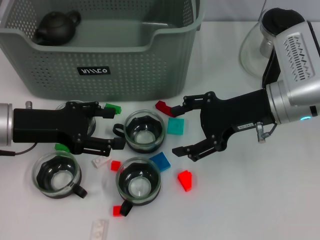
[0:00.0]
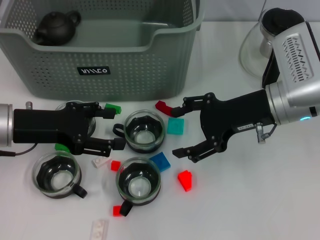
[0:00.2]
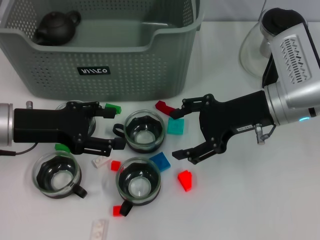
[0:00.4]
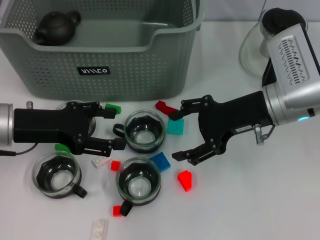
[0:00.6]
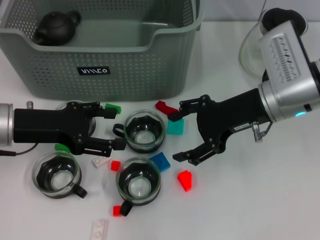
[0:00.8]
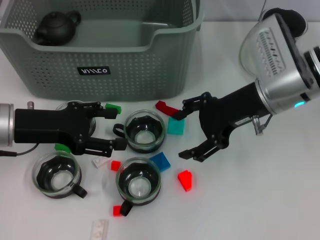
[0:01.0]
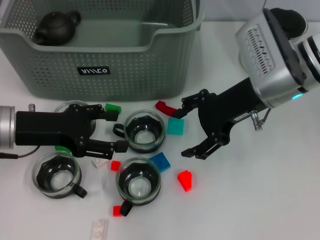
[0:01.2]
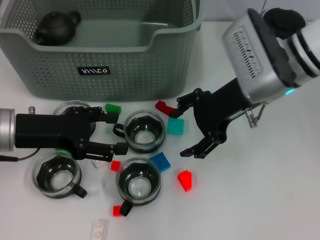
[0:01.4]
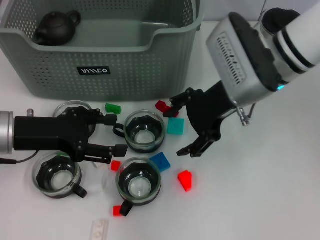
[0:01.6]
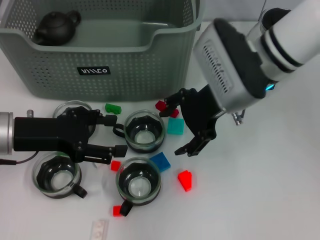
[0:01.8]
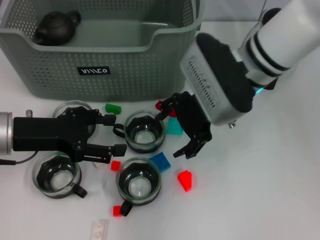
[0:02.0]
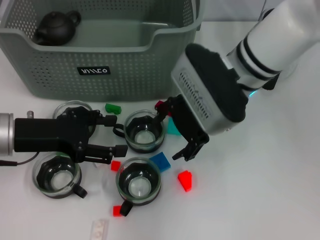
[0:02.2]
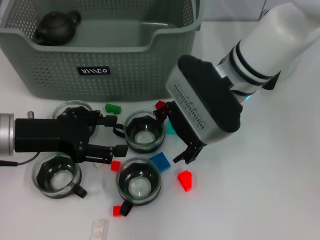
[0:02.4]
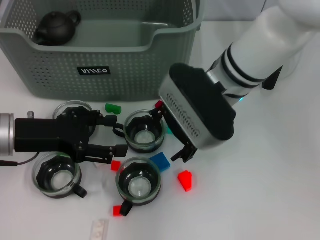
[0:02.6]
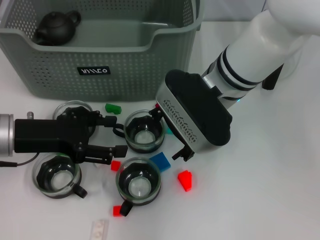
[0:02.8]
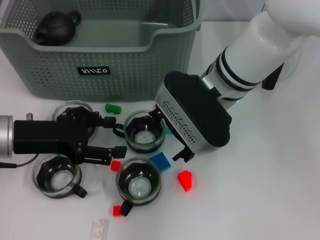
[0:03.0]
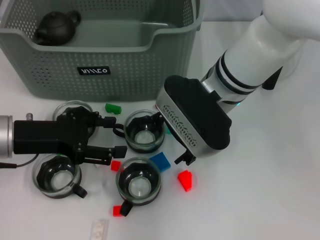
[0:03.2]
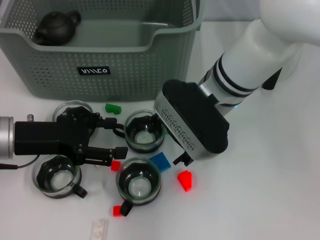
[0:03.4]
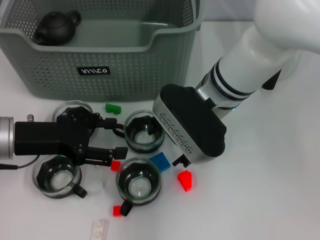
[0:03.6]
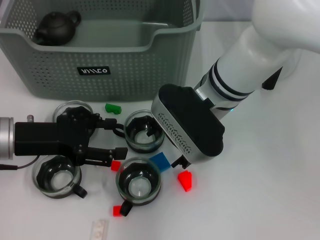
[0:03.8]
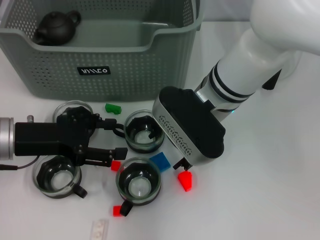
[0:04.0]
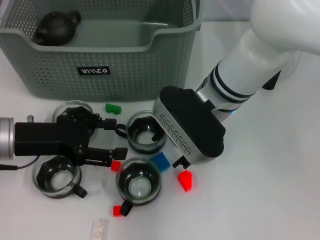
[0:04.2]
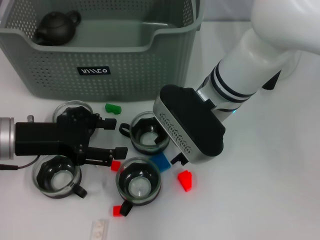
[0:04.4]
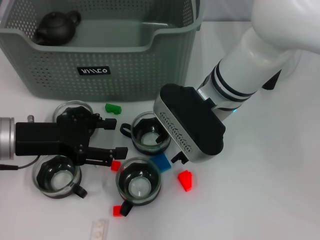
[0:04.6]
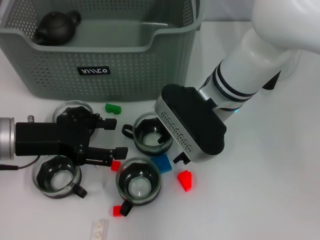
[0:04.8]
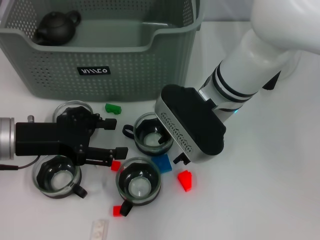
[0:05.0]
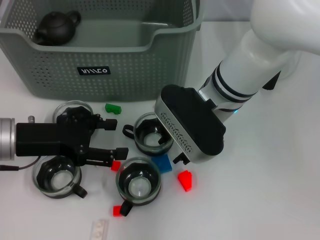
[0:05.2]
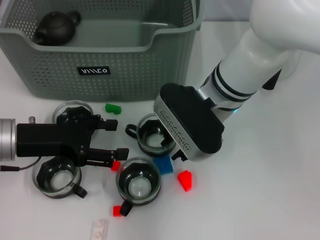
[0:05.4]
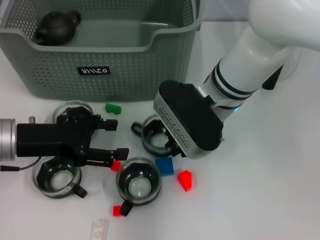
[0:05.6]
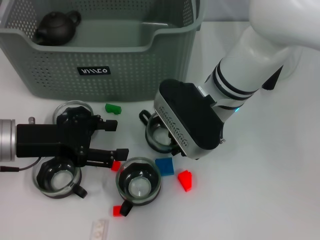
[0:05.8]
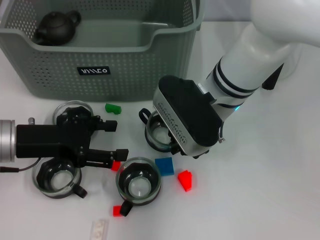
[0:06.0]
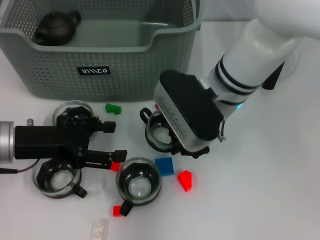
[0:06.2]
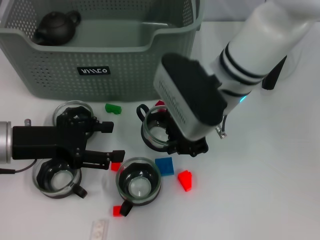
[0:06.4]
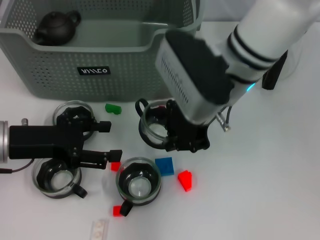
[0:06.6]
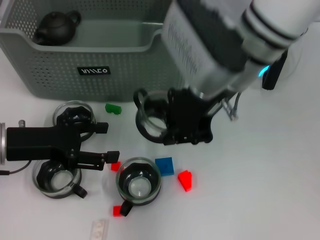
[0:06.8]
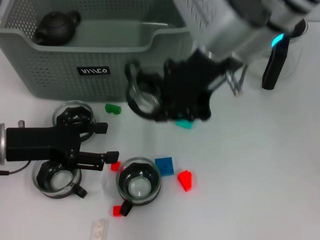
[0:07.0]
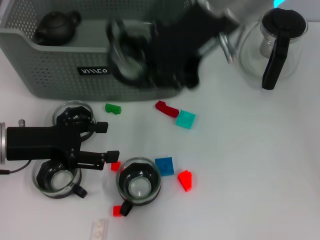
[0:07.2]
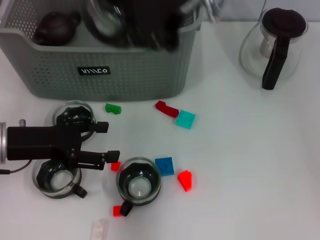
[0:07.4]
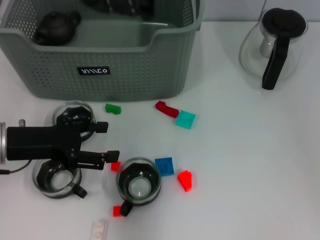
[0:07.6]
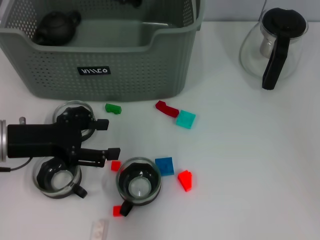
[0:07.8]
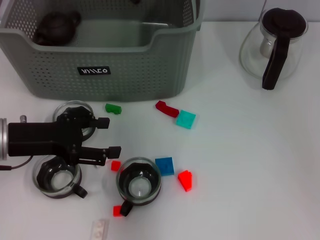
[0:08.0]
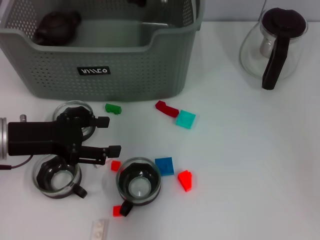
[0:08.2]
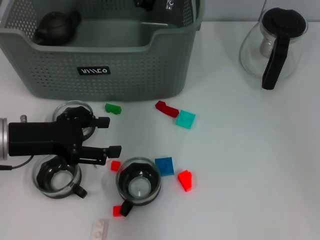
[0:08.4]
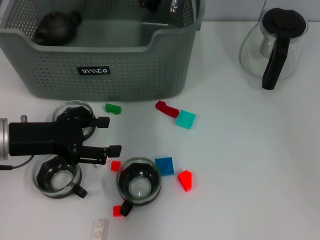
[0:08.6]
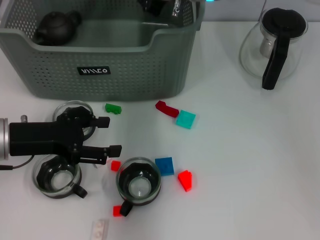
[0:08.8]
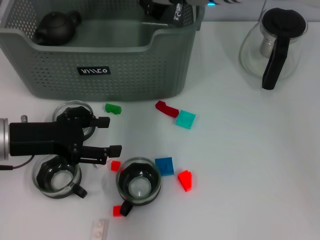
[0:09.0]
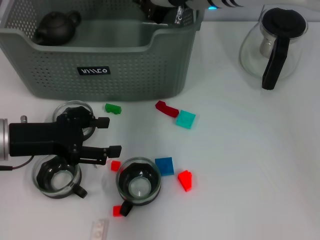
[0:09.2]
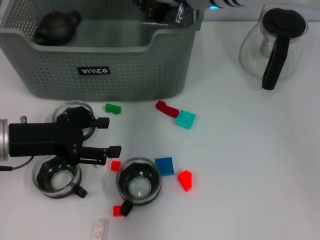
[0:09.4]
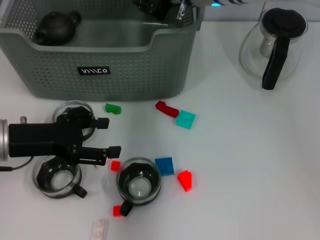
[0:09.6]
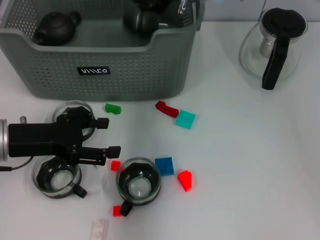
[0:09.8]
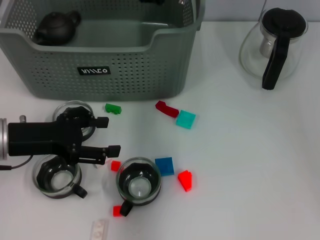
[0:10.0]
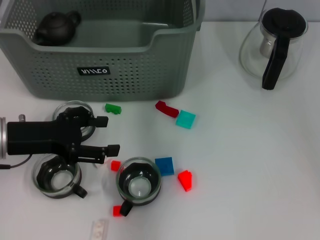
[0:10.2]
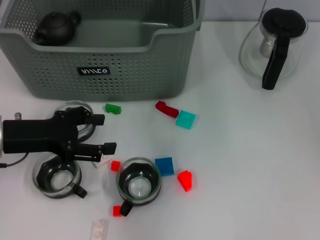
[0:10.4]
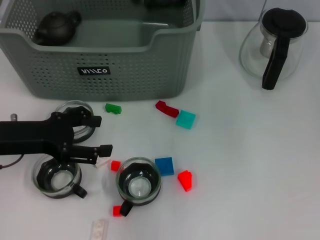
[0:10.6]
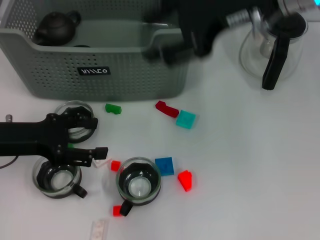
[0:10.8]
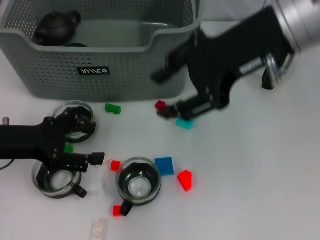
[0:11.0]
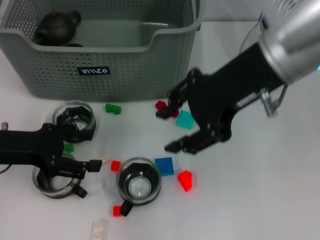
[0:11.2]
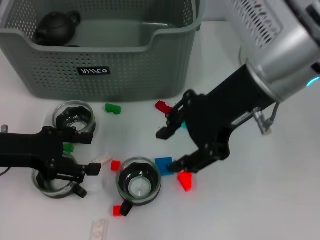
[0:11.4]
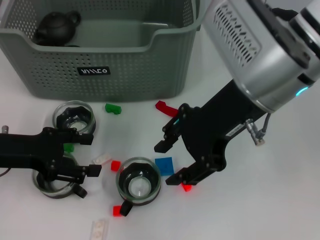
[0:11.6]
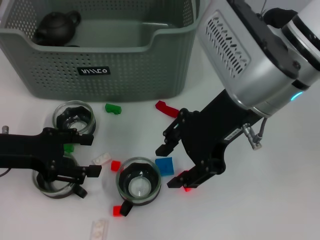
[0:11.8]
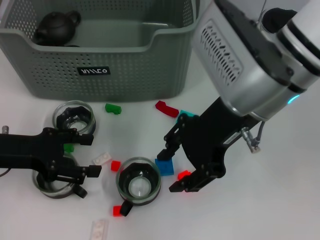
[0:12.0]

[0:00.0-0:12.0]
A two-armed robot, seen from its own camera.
Task of the whole recording: pick up the teacup on the table and place it into the storage bin, pick up the block on the table and place it into the storage bin.
Step, 0:00.0 to 0:05.6: Grasp the cup with right gripper.
Step, 0:06.0 to 0:10.0: Place the cup in the storage box with right gripper.
0:00.0 to 0:01.6: The right gripper shifts approximately 5 cm to the left.
0:01.6 to 0:03.0: The right gripper goes some 5 cm to the left.
0:03.0 to 0:04.4: The grippers stay close to where they were, moving slightly.
0:04.4 to 0:06.0: The right gripper closes up.
0:06.0 to 0:07.6: The right gripper heads upward, covering roughly 20 cm.
0:07.6 to 0:09.0: The right gripper shifts some 15 cm downward and forward.
0:09.0 to 0:10.4: The right gripper shifts some 5 cm upward, and opens up.
0:10.4 to 0:12.0: The right gripper is displaced backward by roughly 15 cm.

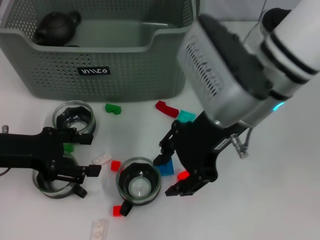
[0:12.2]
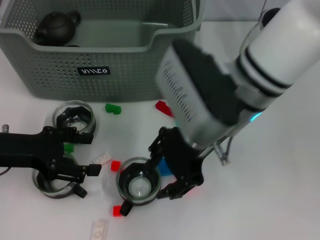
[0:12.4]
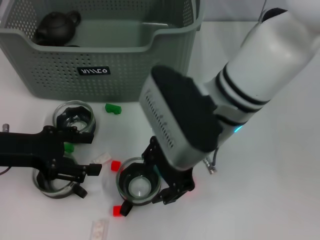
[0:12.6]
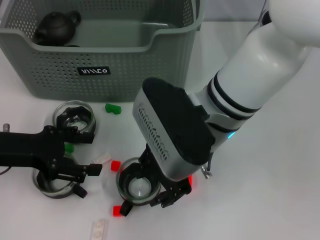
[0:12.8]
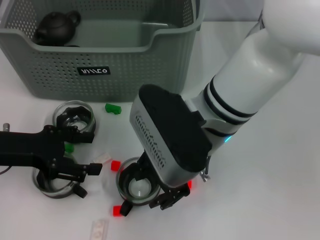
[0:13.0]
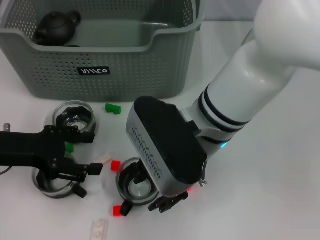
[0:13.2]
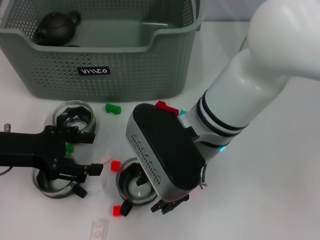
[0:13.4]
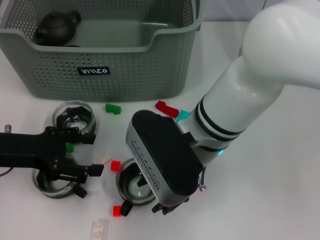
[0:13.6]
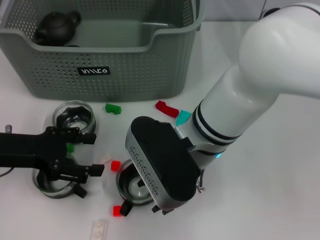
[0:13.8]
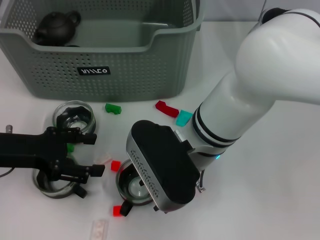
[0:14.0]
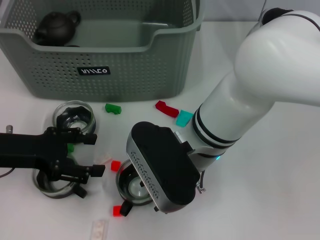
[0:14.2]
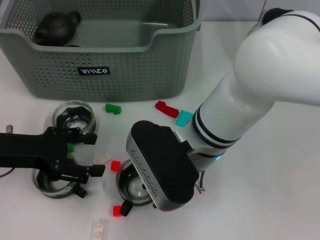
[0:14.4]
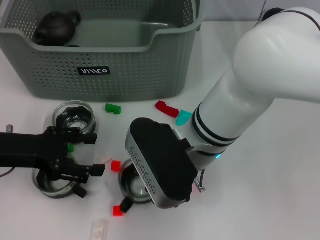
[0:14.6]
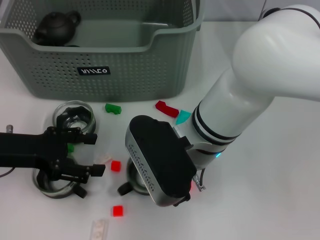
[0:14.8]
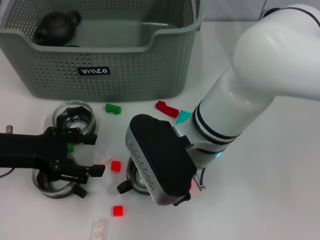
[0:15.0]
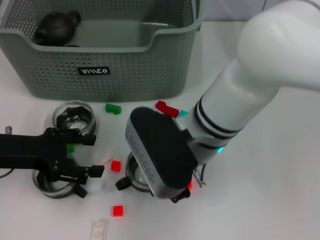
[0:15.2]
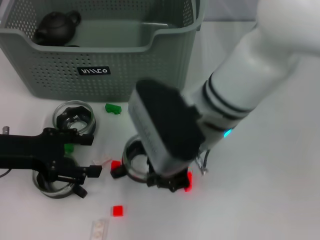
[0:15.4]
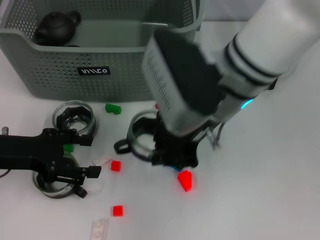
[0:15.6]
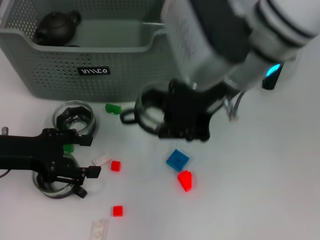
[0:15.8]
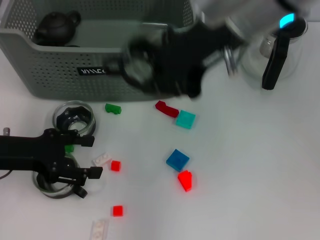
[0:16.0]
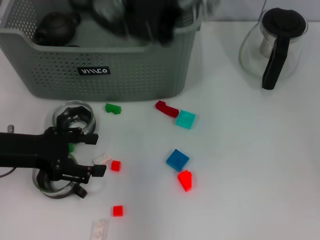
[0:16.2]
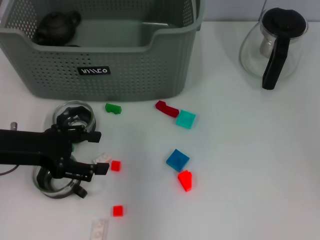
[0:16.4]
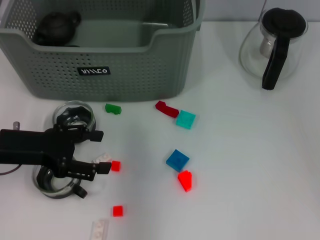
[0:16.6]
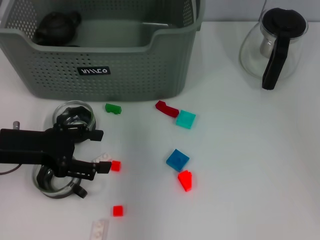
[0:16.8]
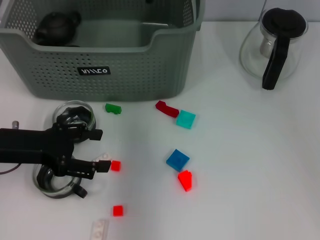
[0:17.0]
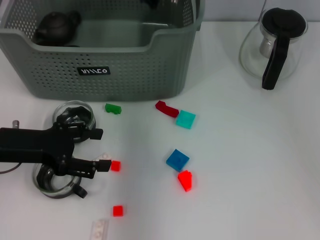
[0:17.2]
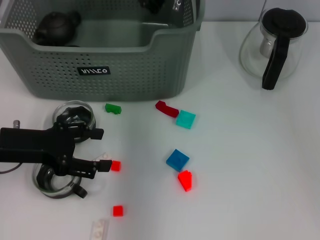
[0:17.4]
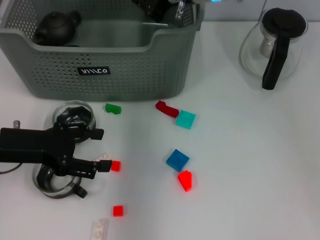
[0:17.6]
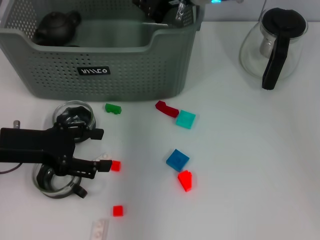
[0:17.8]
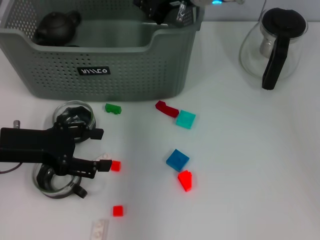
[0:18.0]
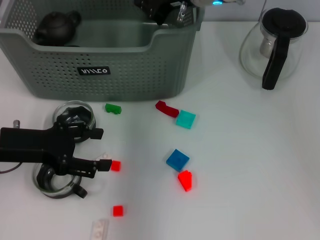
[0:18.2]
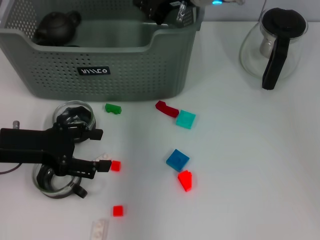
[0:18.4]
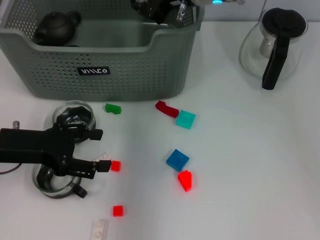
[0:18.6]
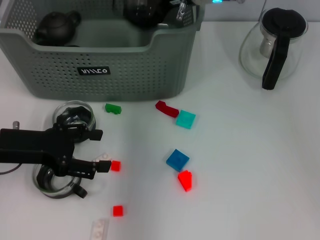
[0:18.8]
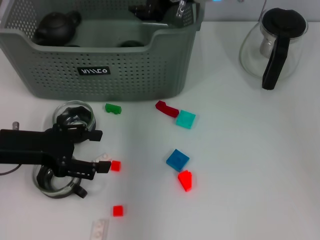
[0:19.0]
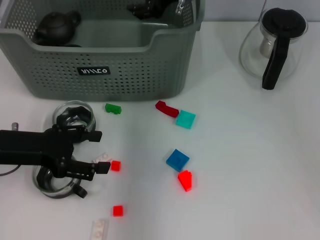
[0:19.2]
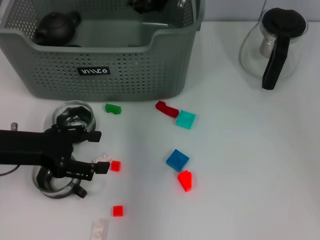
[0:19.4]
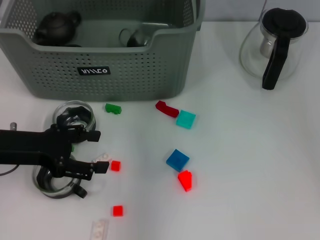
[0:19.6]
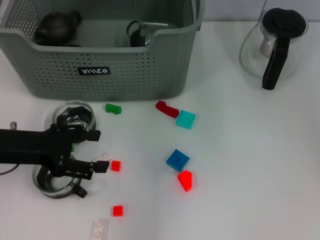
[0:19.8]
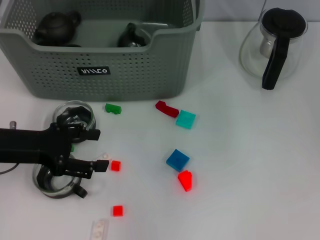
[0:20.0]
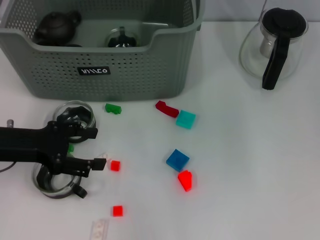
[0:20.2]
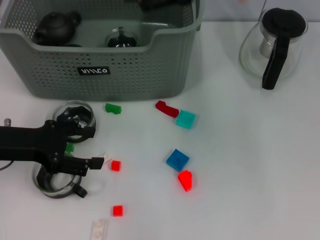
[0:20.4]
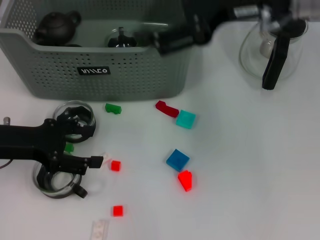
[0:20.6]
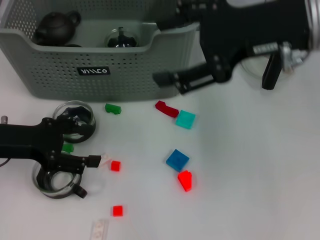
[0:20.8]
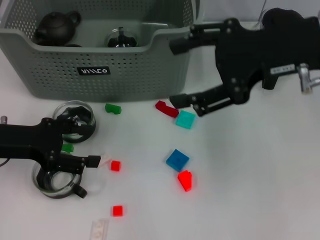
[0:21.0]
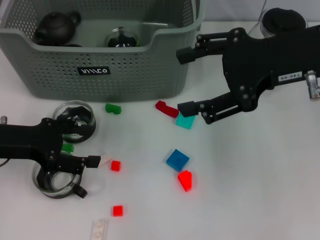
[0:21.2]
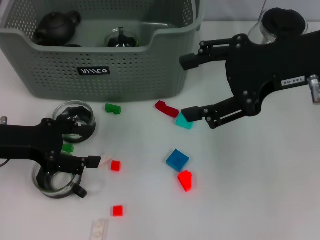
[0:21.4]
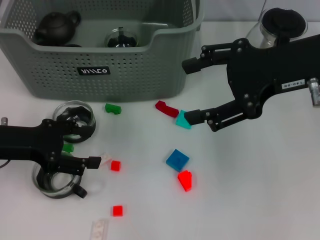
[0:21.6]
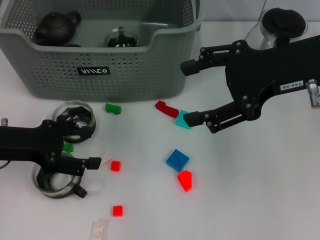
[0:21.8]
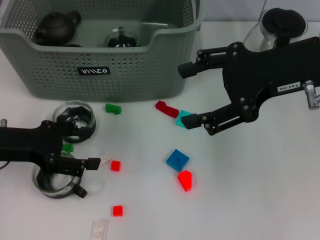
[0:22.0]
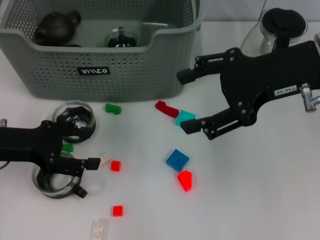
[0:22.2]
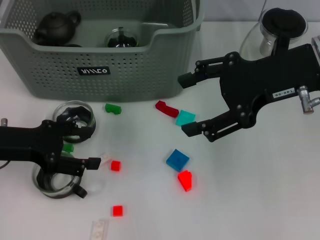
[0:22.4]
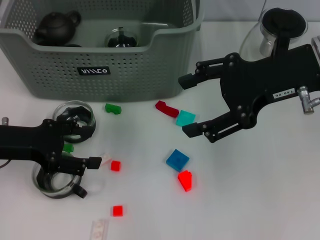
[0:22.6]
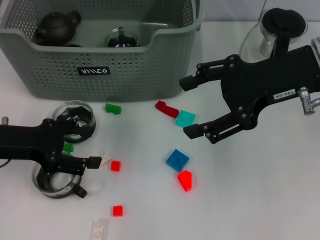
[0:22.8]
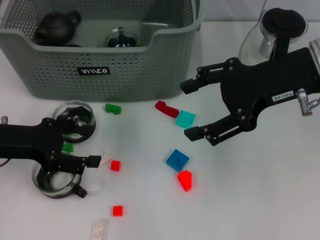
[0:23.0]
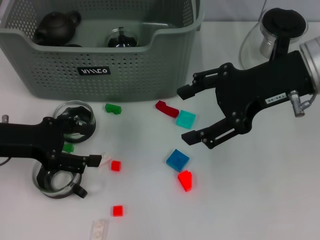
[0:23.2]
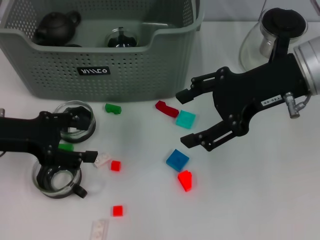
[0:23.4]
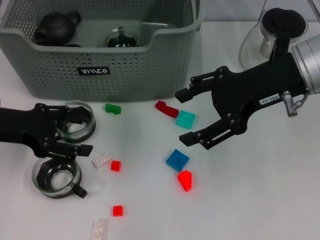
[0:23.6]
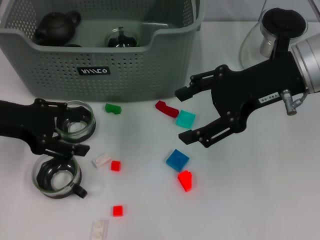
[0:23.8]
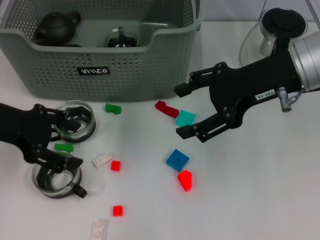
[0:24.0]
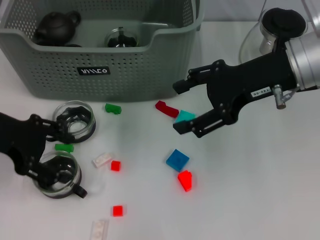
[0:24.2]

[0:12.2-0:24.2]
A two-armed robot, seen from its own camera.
Task of the whole recording: pick up the teacup on the table and place it into the storage bin, pick up the block on the table and place it into the storage bin.
Step, 0:12.2 to 0:14.8: Grasp the cup with right gripper.
Step, 0:15.0 to 0:19.2: Place the cup in the storage box with right gripper.
0:12.2 to 0:13.8: The right gripper moves downward and to the left, roughly 10 cm.
0:13.8 to 0:15.2: The right gripper closes up.
0:15.2 to 0:16.6: The right gripper goes some 20 cm upward and forward.
0:16.6 to 0:18.2: The right gripper moves downward, approximately 10 cm.
0:18.2 to 0:19.8: The right gripper is displaced upward by some 5 cm, and opens.
0:19.8 to 0:21.2: The right gripper travels backward and to the right by about 15 cm.
0:21.2 to 0:22.6: The grippers make only small movements.
0:22.6 to 0:24.2: The left gripper goes about 5 cm upward.
